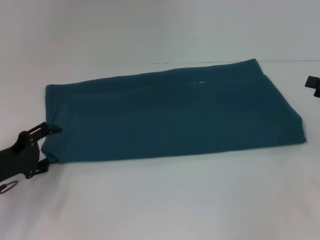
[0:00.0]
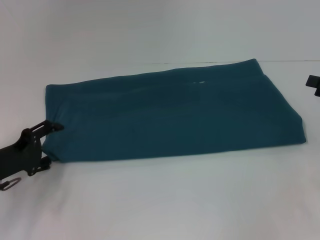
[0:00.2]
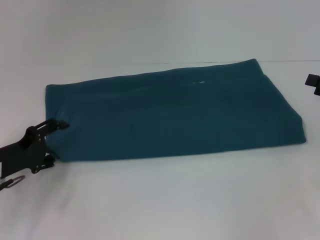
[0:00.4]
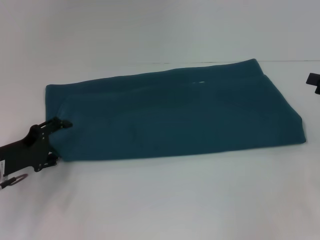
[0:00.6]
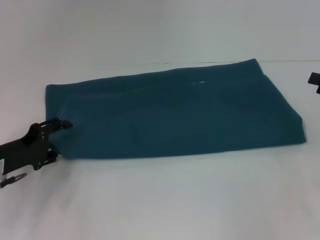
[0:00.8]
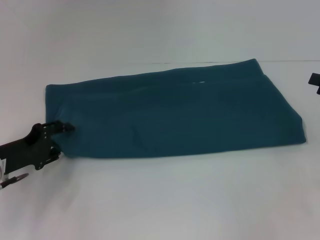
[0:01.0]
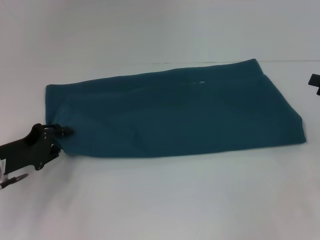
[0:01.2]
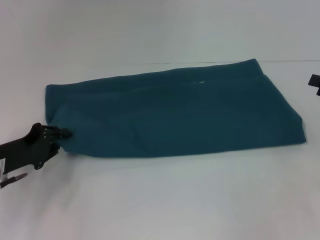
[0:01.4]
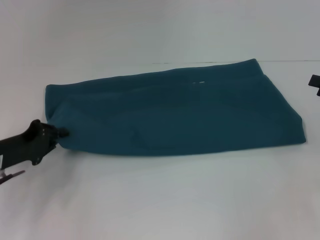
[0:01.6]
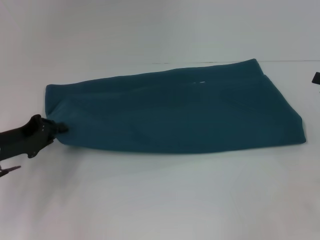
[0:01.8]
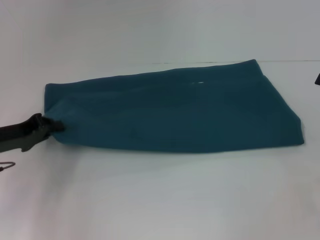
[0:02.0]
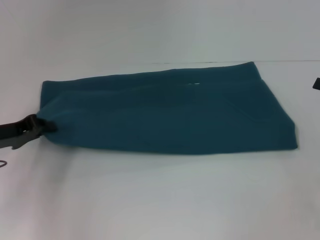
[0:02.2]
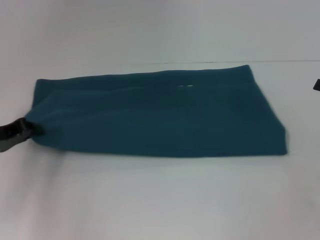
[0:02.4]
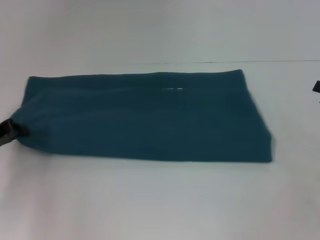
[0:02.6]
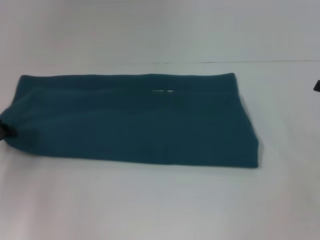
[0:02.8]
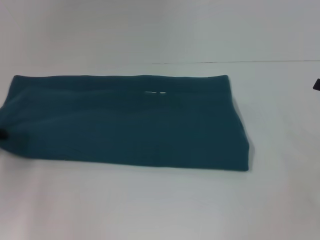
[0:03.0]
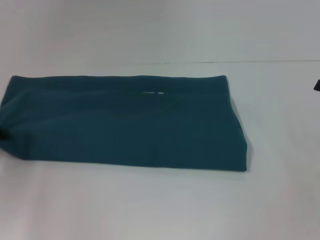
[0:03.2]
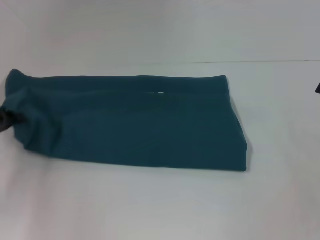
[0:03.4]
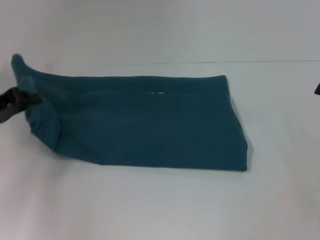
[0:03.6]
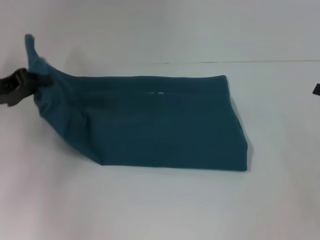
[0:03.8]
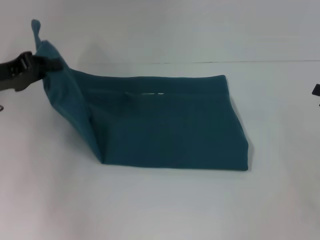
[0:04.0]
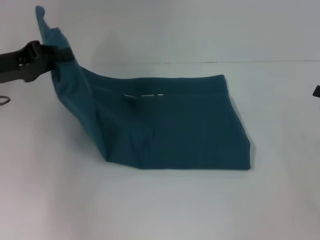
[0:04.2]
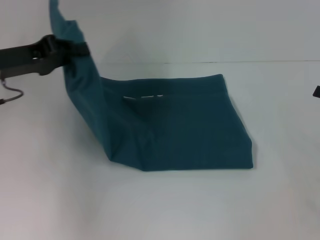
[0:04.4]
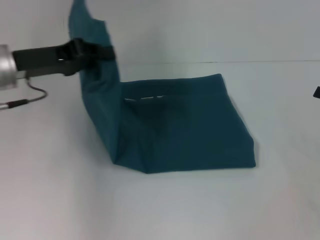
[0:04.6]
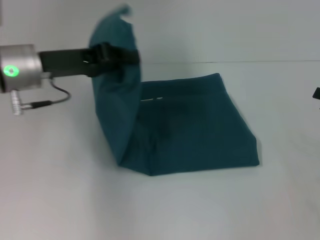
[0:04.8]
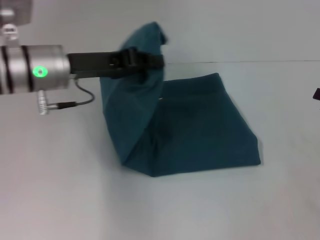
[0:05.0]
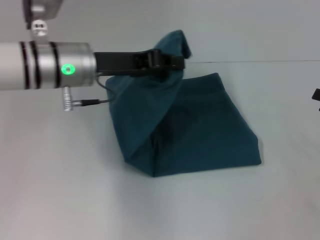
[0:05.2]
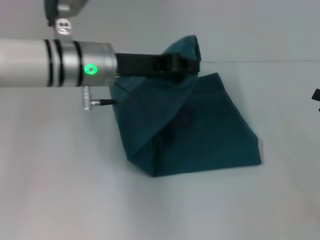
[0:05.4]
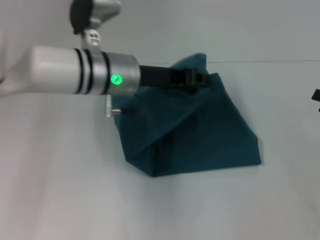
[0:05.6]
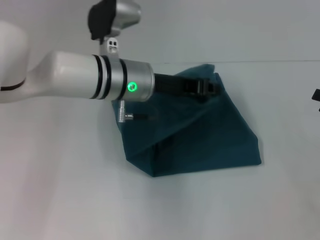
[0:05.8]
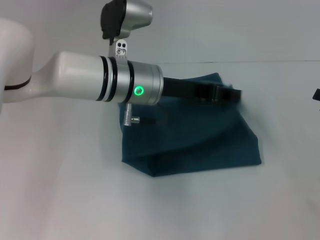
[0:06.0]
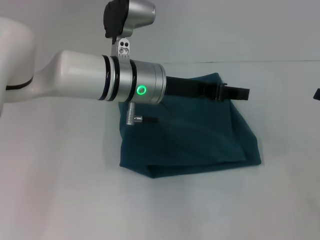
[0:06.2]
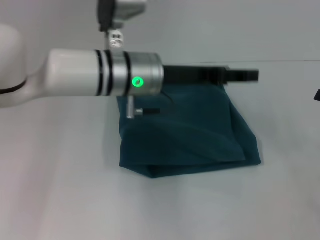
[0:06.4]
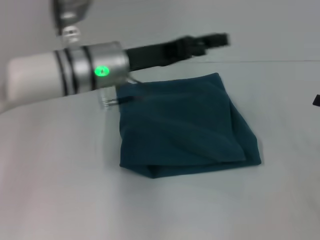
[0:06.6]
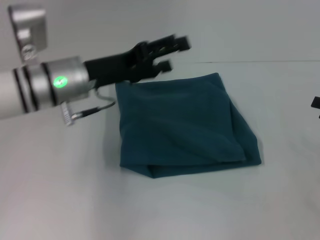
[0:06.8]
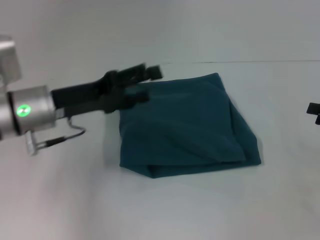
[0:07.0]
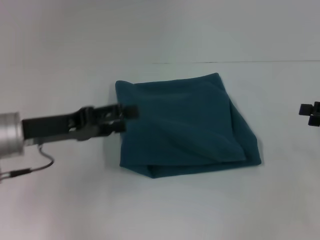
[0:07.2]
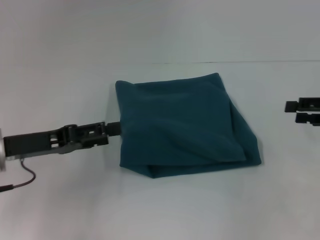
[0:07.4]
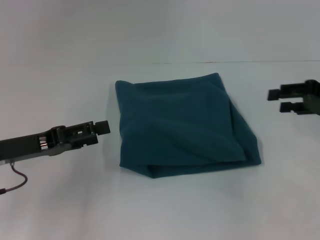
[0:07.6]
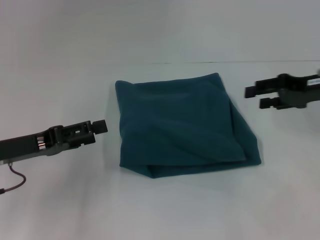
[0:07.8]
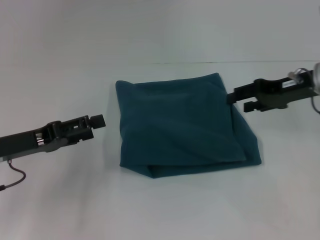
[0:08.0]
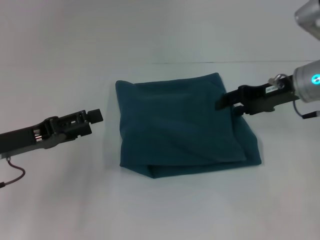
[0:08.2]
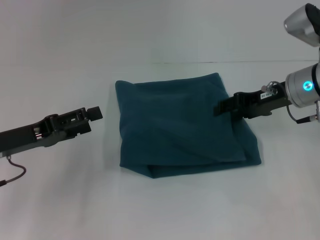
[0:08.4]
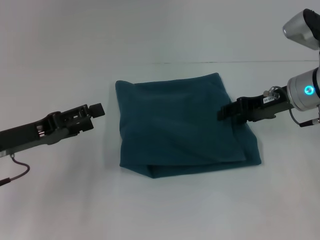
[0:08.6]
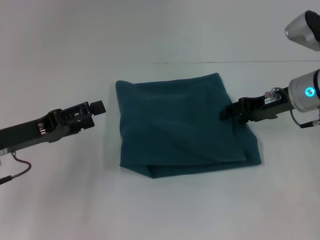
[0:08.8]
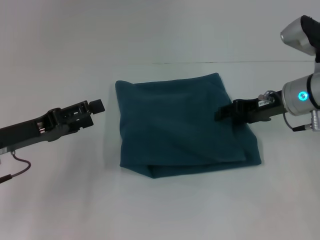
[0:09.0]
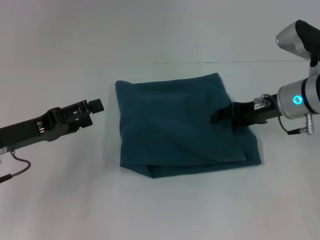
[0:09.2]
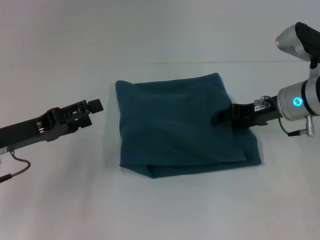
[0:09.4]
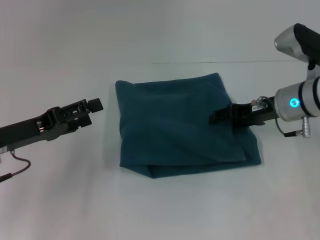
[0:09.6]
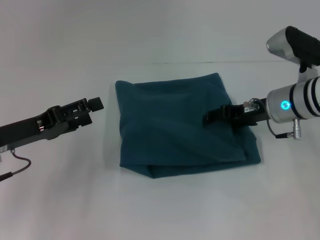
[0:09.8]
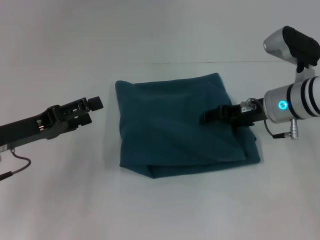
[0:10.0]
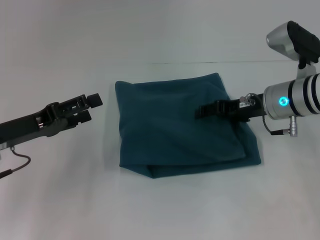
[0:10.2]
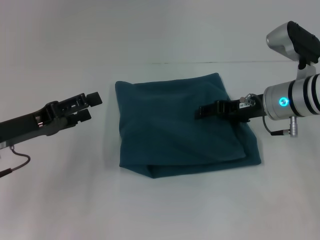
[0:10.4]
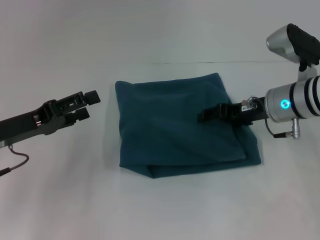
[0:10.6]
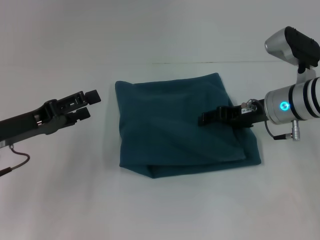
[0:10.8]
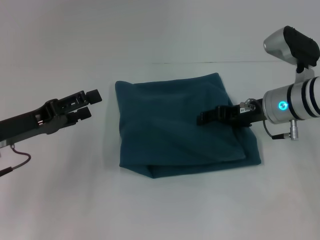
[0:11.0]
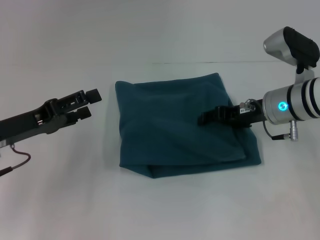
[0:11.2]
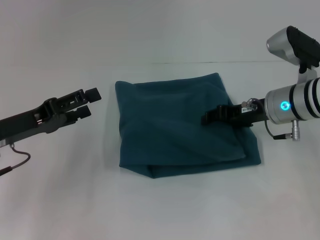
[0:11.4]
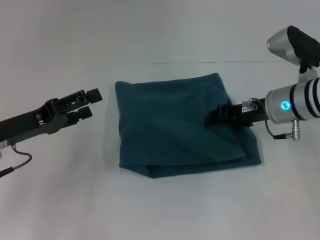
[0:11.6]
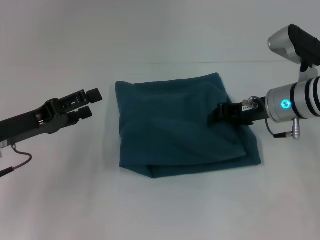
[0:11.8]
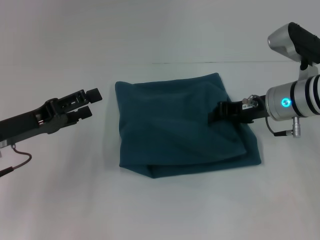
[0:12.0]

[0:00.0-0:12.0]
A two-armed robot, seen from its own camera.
Step, 0:00.0 to 0:06.0: Fold the clothes to the left.
0:00.0 to 0:01.6: The left gripper closes its fingers.
0:01.6 to 0:03.0: The left gripper travels to the left by approximately 5 cm.
0:03.0 to 0:04.4: The left gripper travels upward and to the right by about 15 cm.
0:04.4 to 0:06.0: The left gripper shifts roughly 20 cm to the right.
0:06.0 to 0:07.6: The right gripper heads forward and to the left, covering roughly 10 cm, while the left gripper goes roughly 25 cm to the left and backward, and opens its fingers.
0:07.6 to 0:09.0: The right gripper shifts about 10 cm to the left.
0:09.0 to 0:10.4: The grippers stay close to where they were, moving slightly.
0:10.4 to 0:12.0: The right gripper closes its fingers.

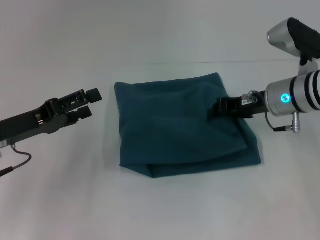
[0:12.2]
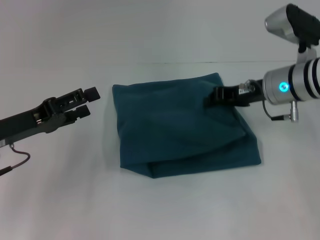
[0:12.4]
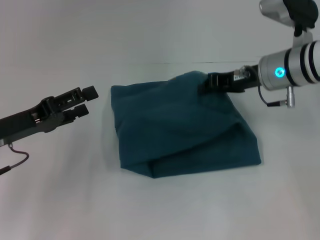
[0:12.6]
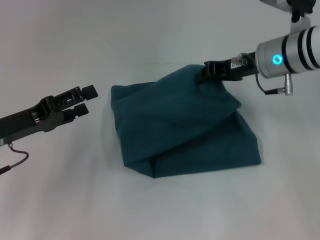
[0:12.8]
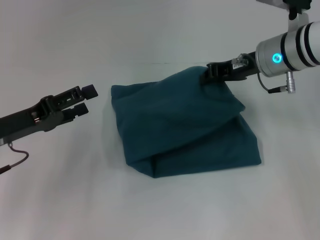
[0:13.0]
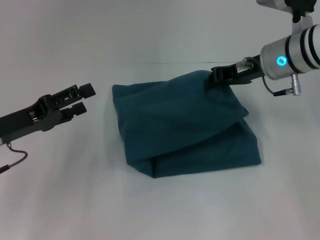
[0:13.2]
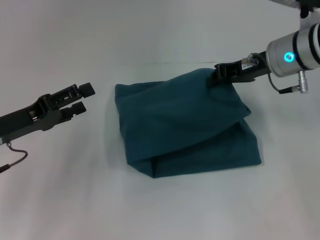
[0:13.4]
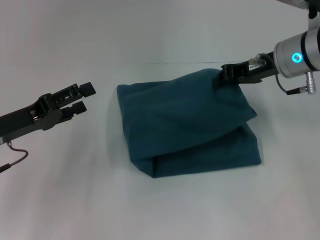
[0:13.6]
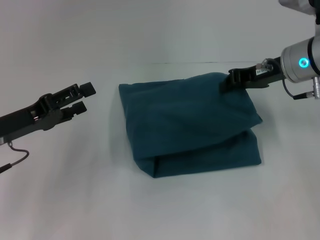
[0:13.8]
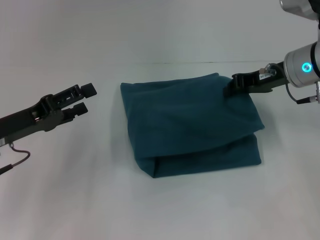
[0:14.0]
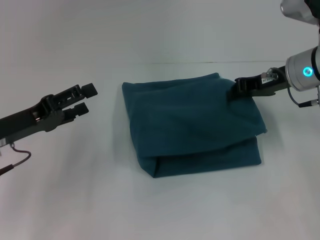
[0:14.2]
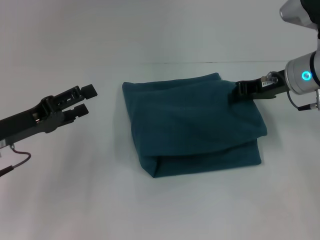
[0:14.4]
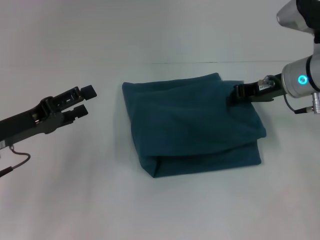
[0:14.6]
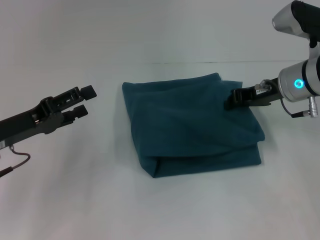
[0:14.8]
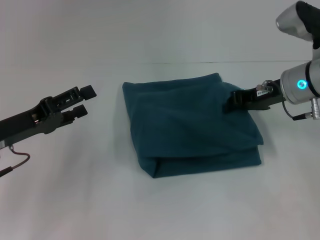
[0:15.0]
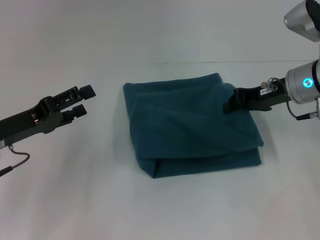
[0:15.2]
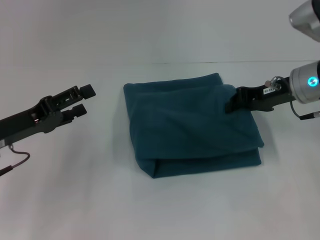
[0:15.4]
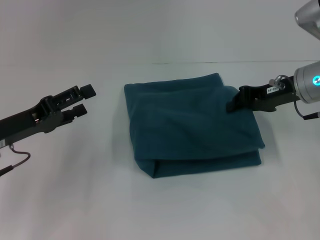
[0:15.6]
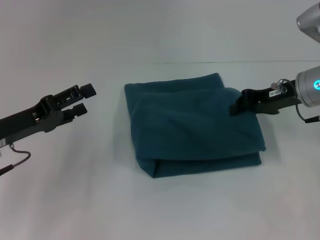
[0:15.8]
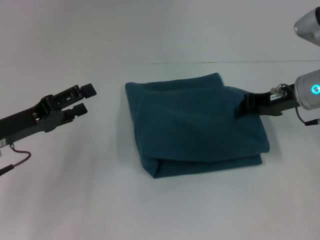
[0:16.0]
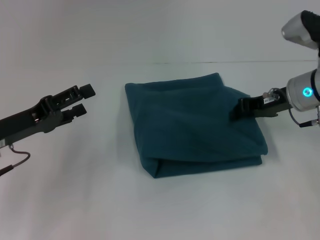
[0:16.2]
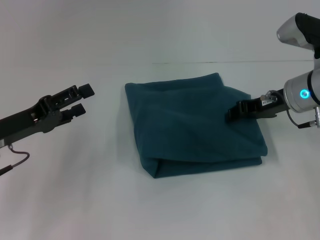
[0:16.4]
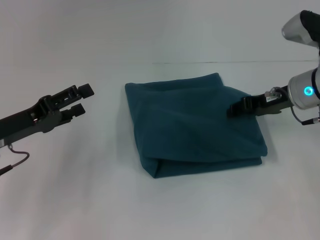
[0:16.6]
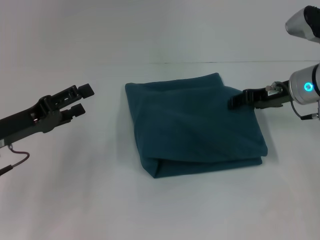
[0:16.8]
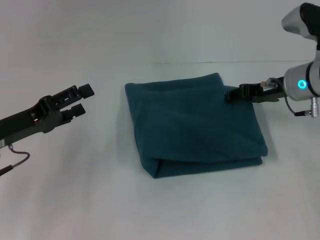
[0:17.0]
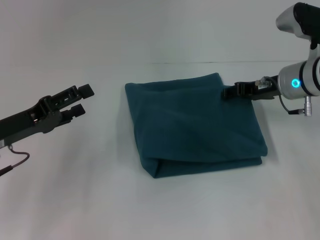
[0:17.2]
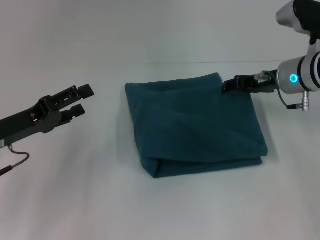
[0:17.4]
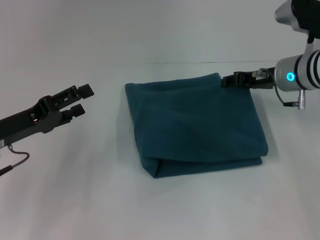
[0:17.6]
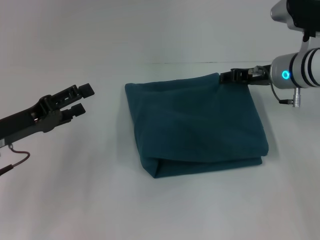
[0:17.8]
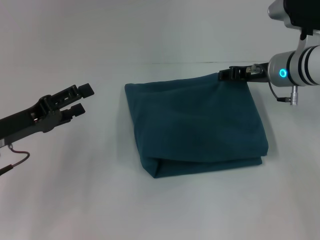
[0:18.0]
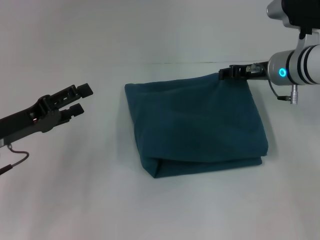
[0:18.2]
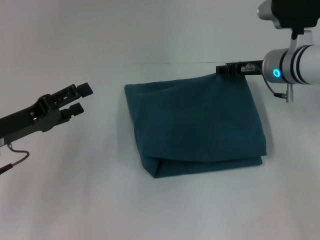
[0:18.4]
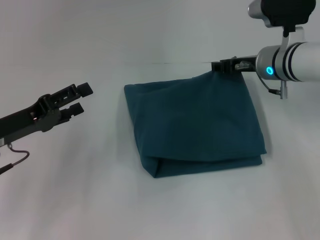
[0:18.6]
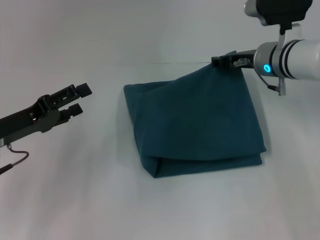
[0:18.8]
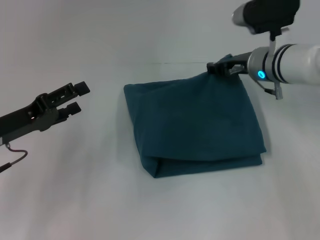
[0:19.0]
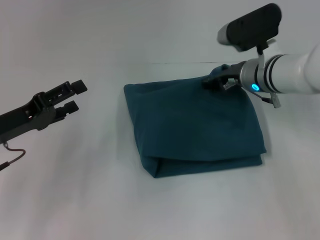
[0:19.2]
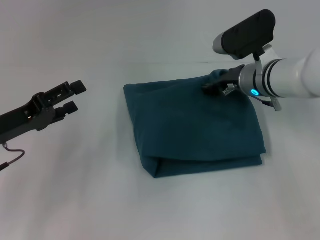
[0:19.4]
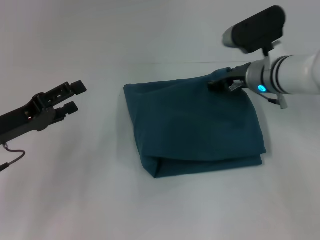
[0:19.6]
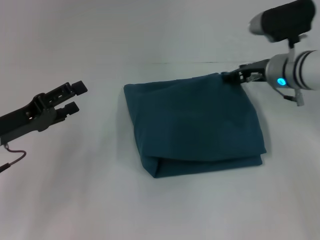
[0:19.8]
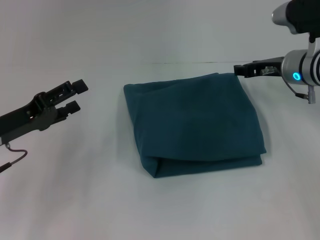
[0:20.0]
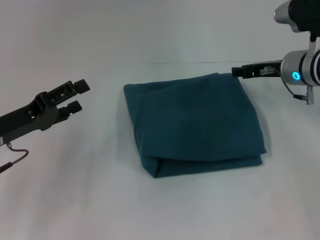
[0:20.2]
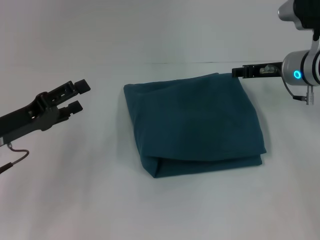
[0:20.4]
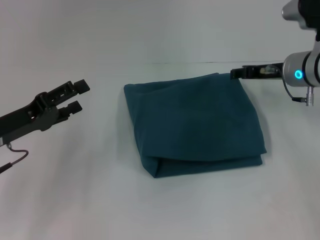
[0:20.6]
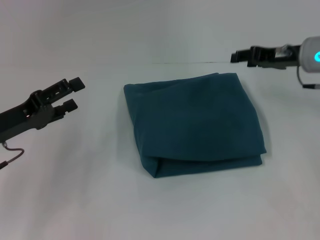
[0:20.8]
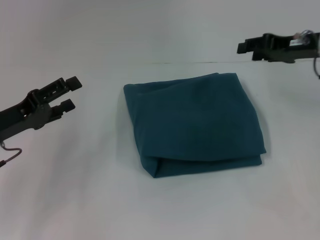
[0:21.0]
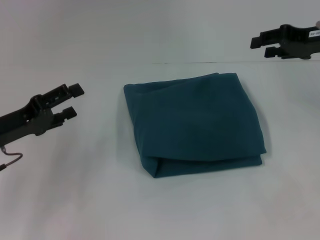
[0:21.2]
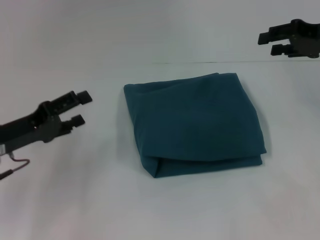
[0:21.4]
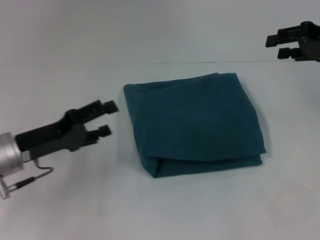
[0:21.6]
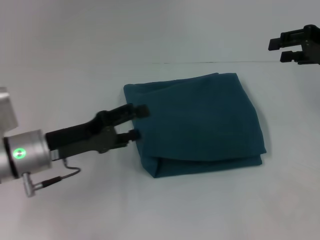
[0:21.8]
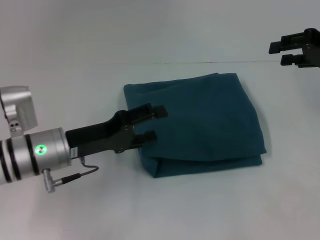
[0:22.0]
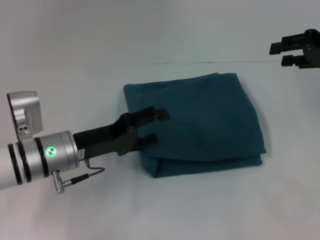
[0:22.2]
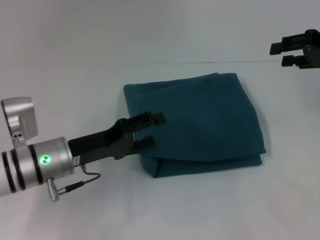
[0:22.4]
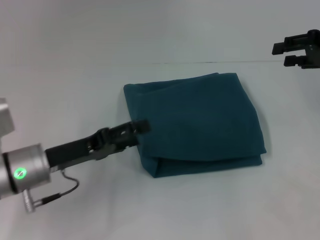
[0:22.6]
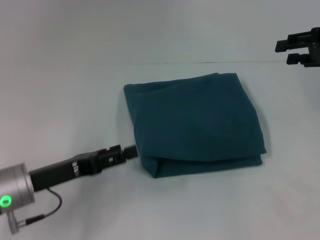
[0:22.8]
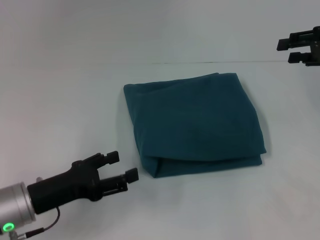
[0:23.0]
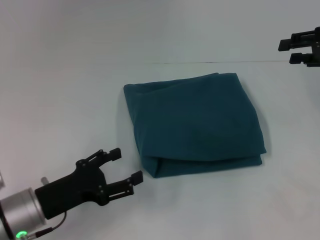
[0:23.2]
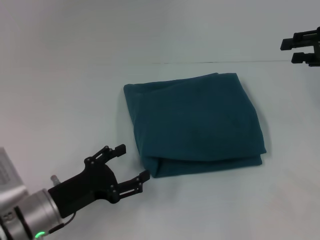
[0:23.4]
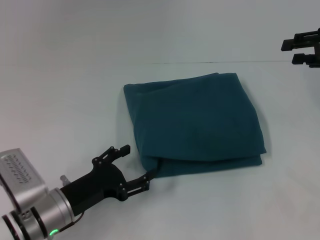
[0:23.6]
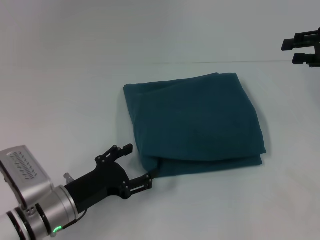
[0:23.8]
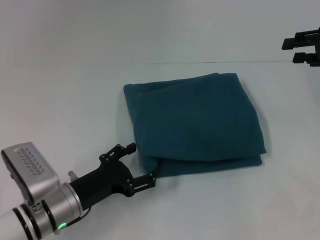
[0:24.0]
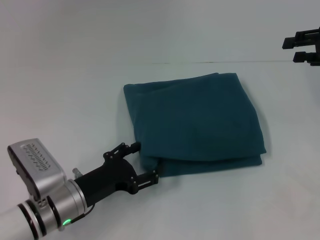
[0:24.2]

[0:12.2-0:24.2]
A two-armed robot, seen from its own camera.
0:12.2 to 0:13.8: The right gripper heads upward, covering some 5 cm.
0:13.8 to 0:18.2: There are only small adjustments of the grippers.
0:19.8 to 0:21.2: The right gripper heads to the right and upward, covering approximately 10 cm.
0:21.2 to 0:22.6: The left gripper heads to the right, covering about 10 cm.
0:22.6 to 0:24.2: The left gripper travels downward by approximately 5 cm.
